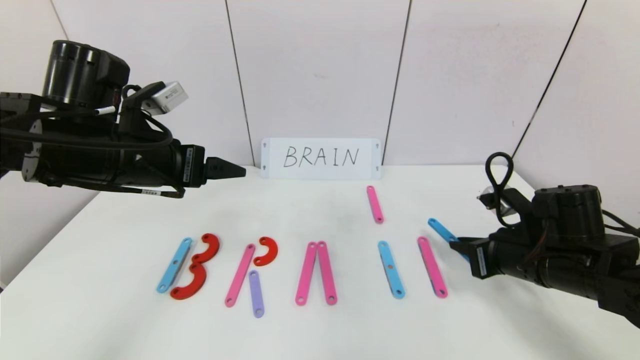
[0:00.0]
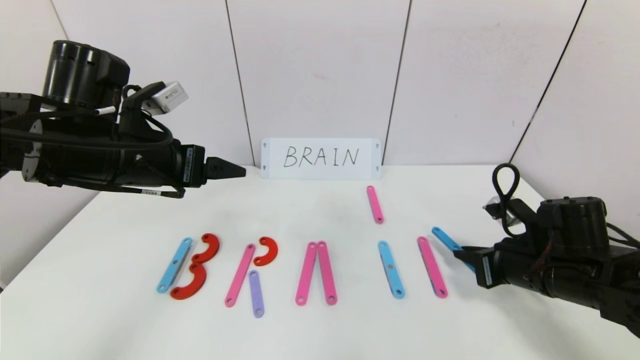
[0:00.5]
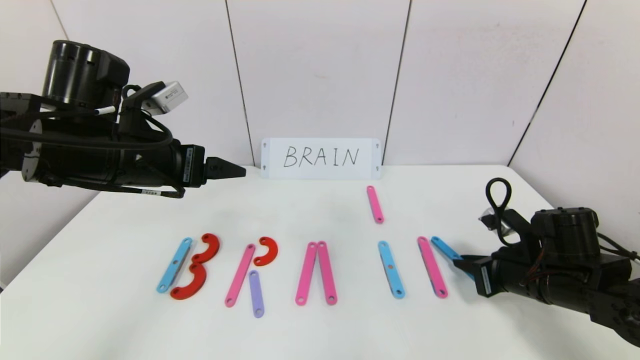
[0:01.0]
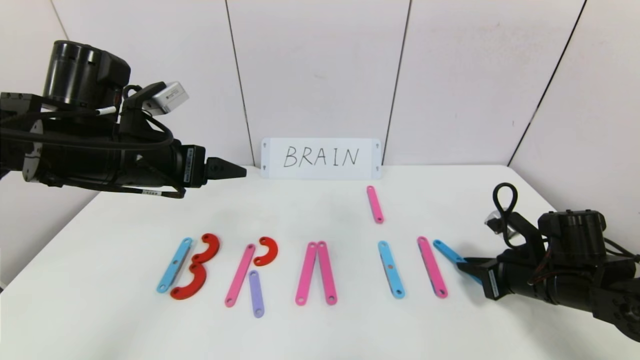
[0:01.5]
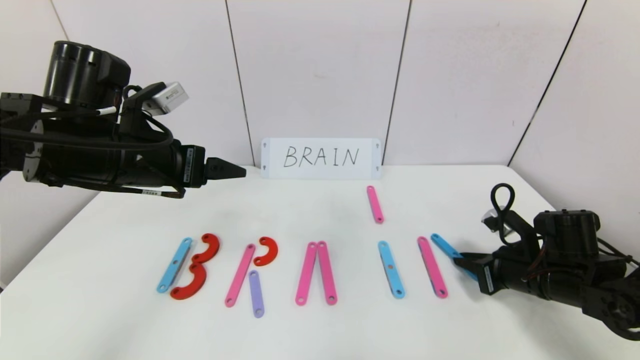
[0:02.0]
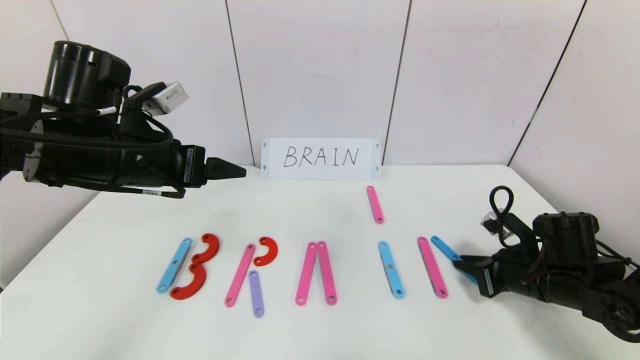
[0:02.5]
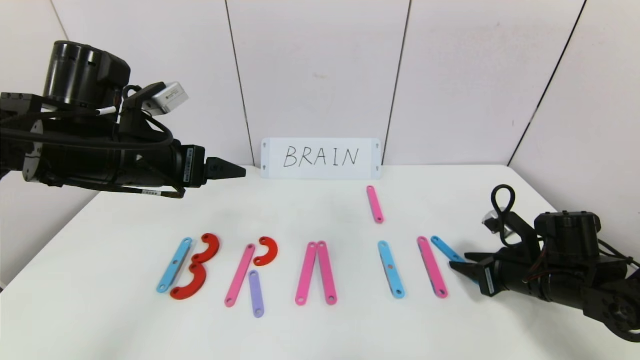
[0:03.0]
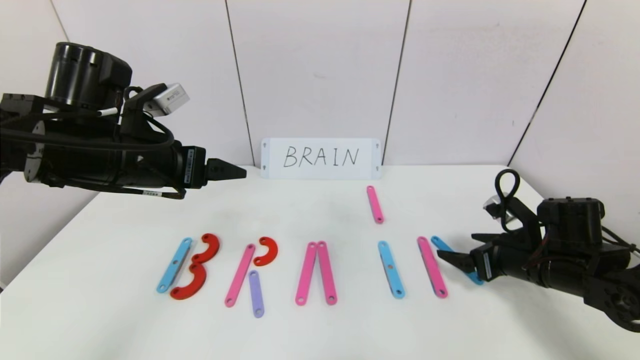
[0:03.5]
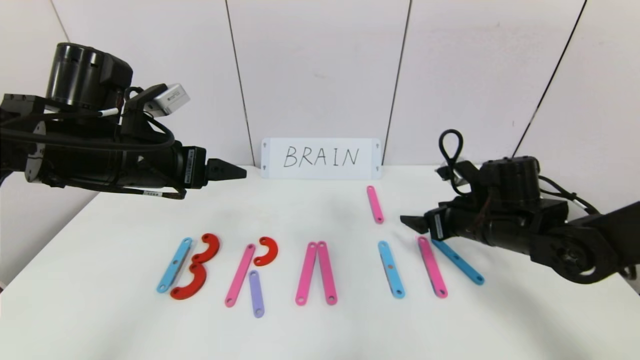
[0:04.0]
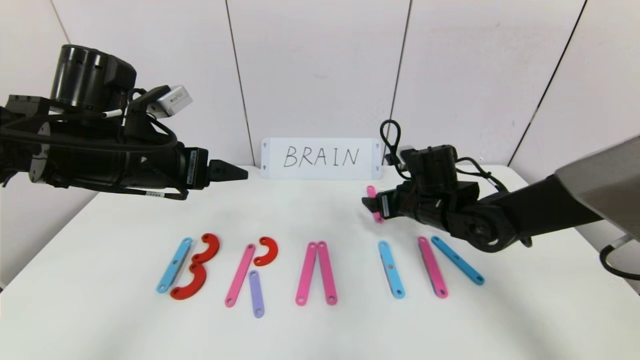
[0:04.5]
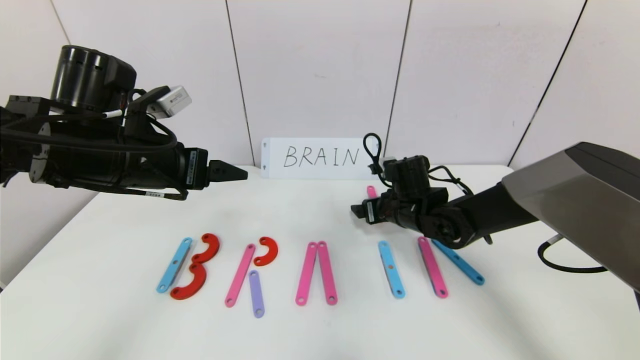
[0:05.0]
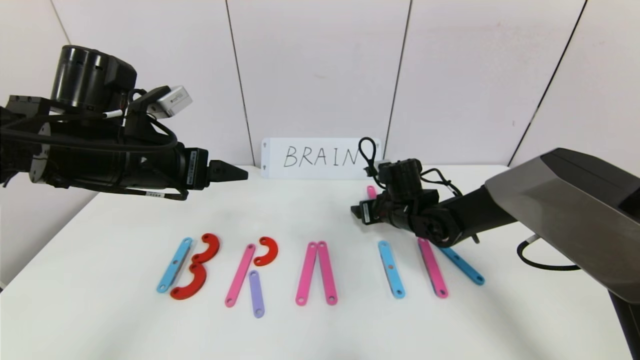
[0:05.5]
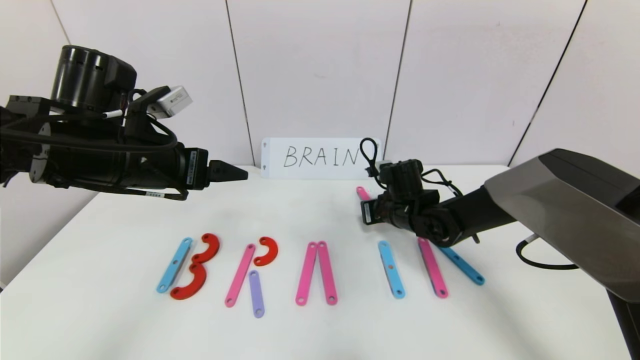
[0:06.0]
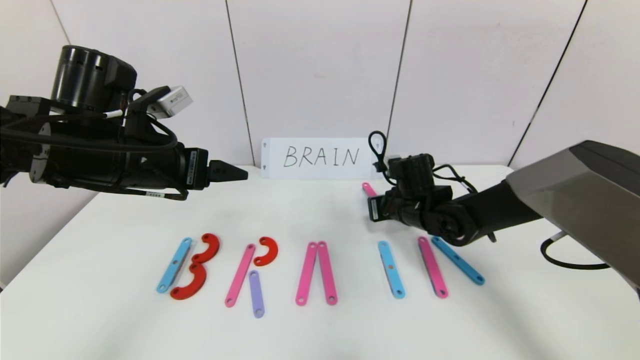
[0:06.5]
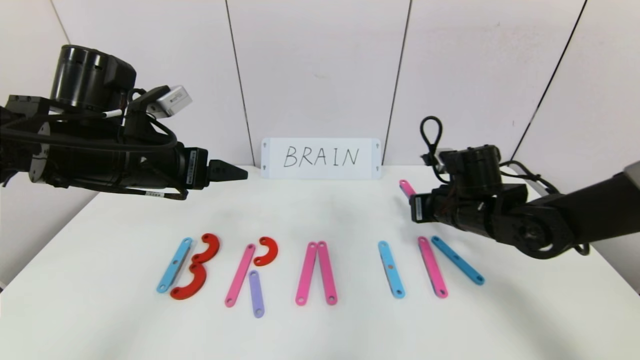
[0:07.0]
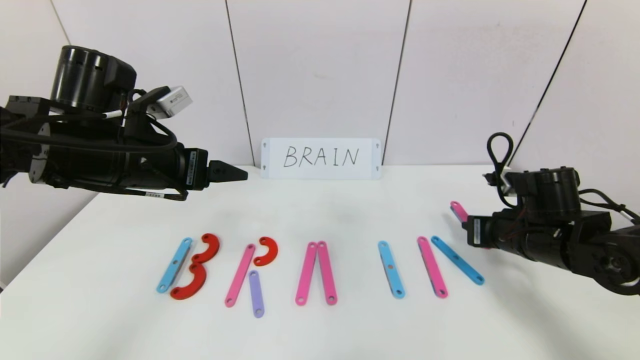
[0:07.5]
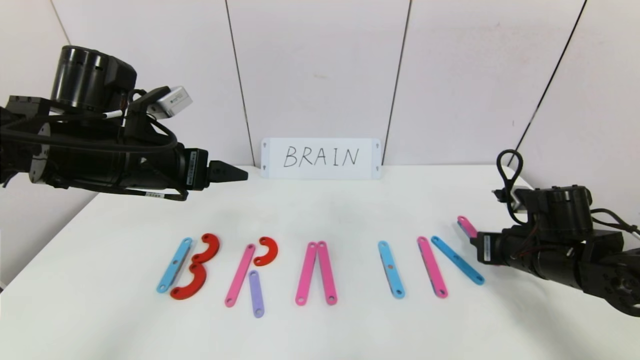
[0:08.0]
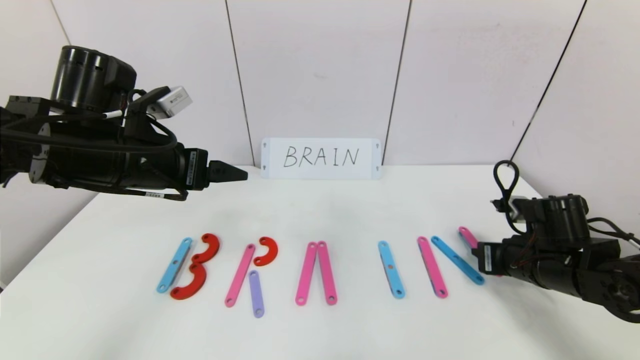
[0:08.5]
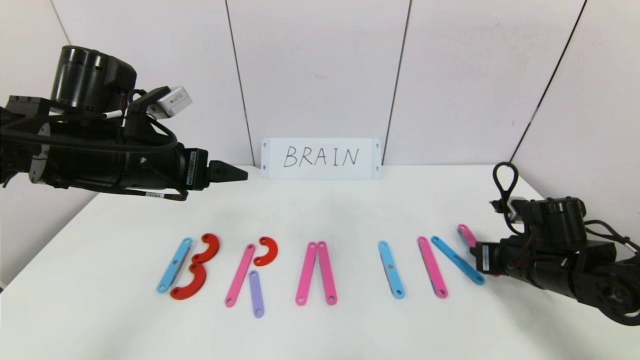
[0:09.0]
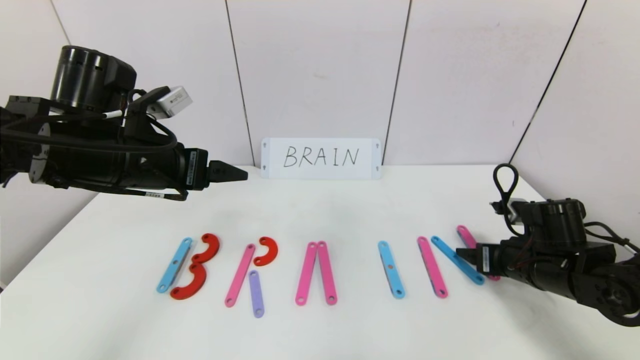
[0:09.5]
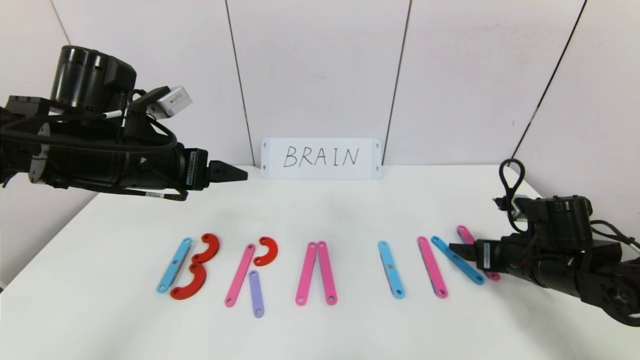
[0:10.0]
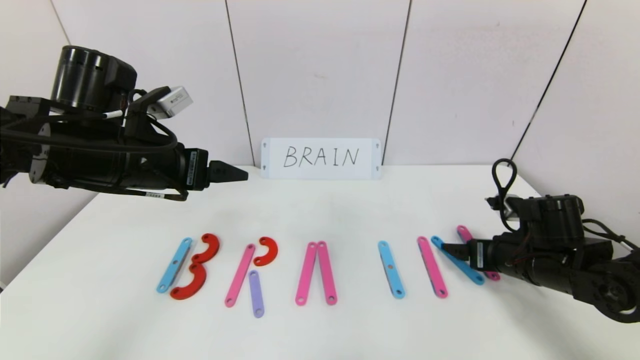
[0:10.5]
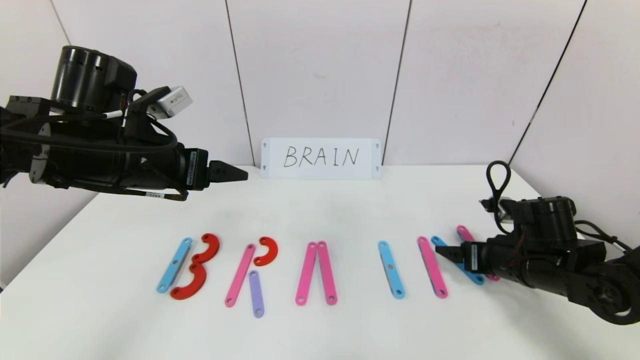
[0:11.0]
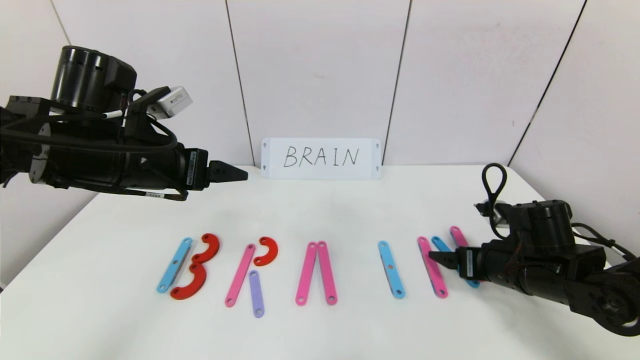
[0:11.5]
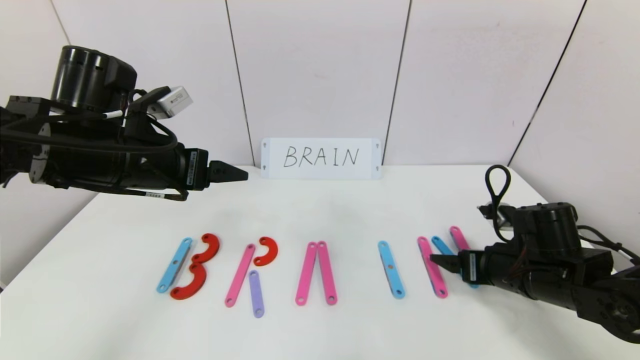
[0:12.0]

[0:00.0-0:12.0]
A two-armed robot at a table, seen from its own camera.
Task of the whole recording: rearrange the word baai as brain.
0:00.0 to 0:02.0: The right gripper travels downward by about 5 cm.
0:02.0 to 0:04.0: The right gripper travels to the left and upward by some 10 cm, and opens.
0:04.0 to 0:06.0: The right gripper is displaced to the left, forward and downward by about 15 cm, and closes its fingers.
0:06.0 to 0:08.0: The right gripper travels to the right and backward by approximately 20 cm.
0:08.0 to 0:10.0: The right gripper opens up.
0:10.0 to 0:12.0: There are only small adjustments of the grippers.

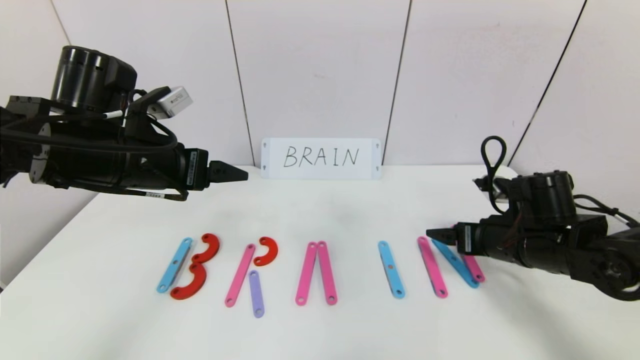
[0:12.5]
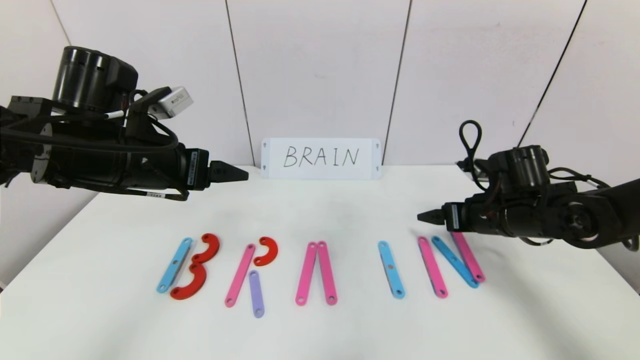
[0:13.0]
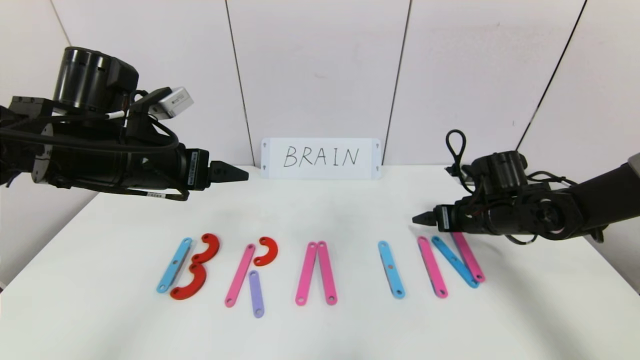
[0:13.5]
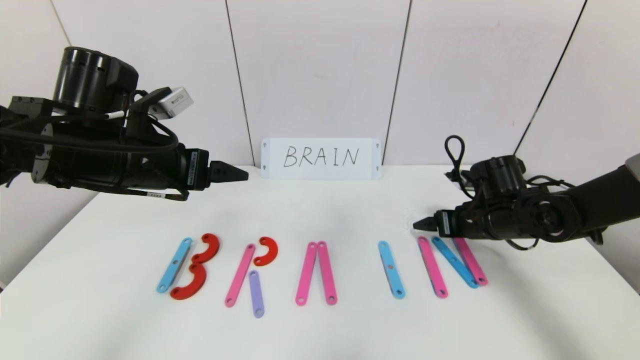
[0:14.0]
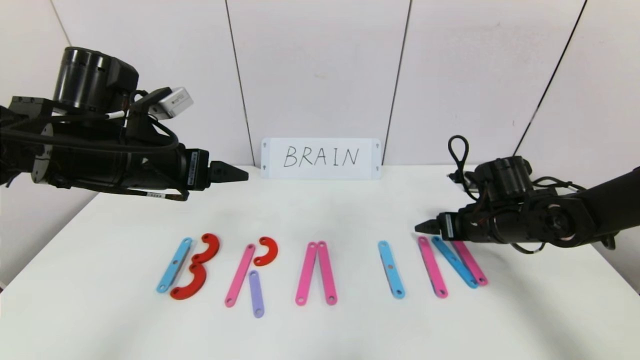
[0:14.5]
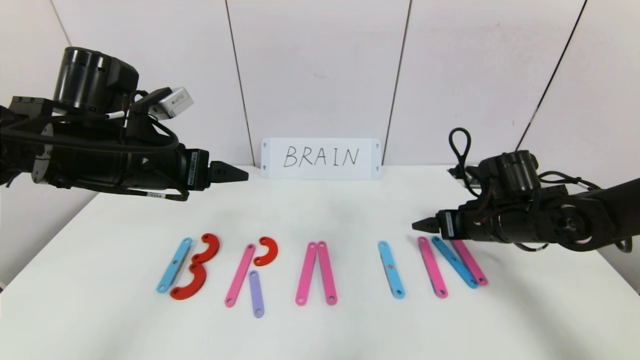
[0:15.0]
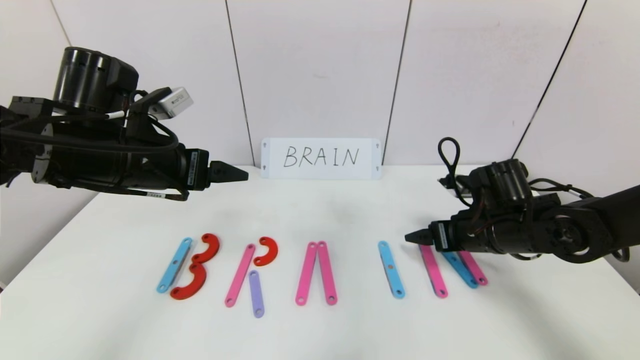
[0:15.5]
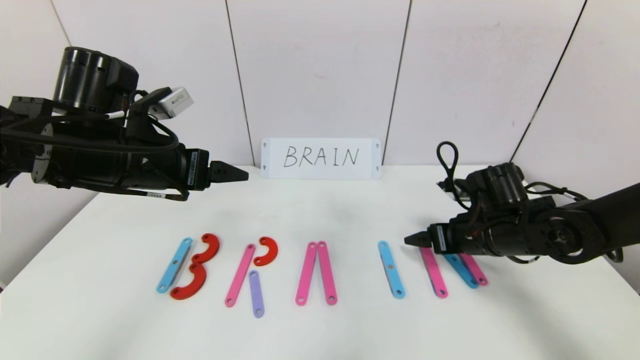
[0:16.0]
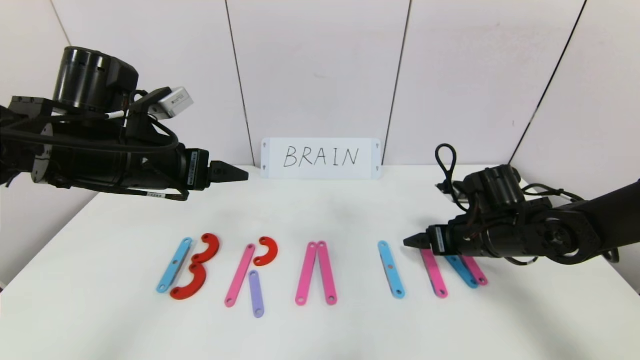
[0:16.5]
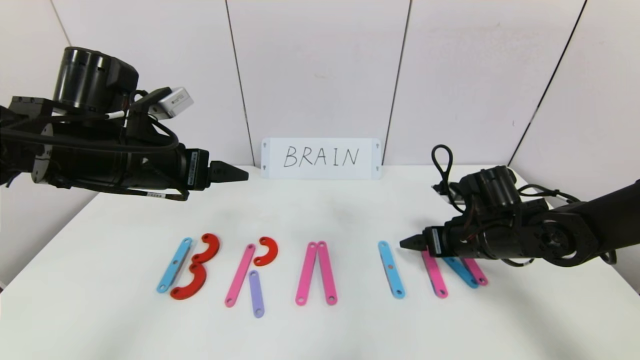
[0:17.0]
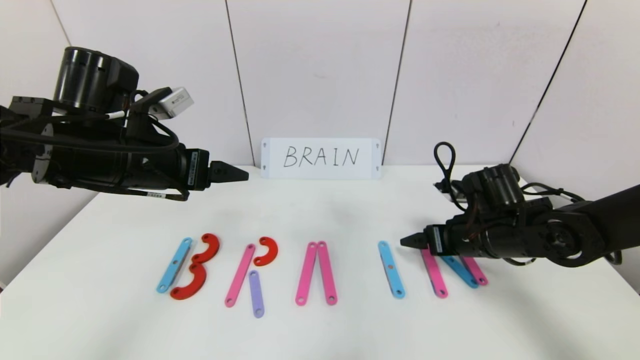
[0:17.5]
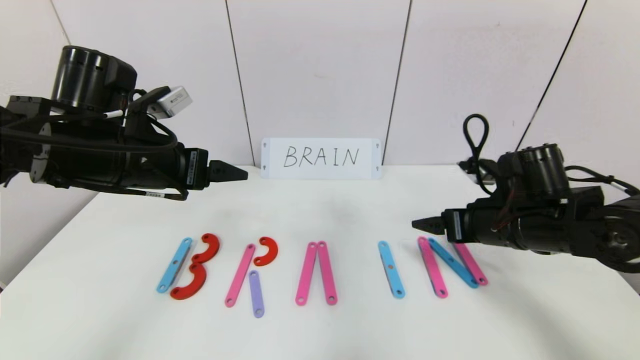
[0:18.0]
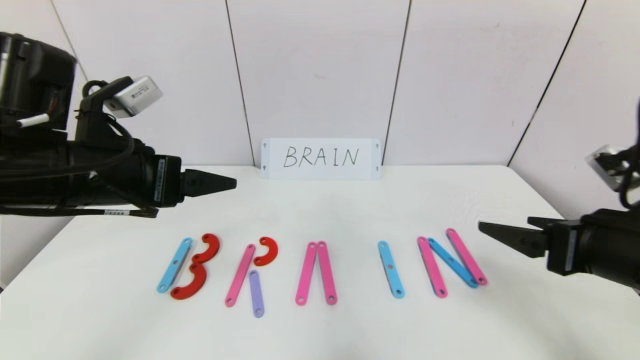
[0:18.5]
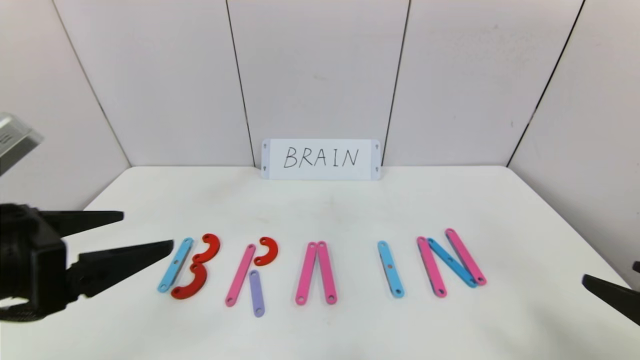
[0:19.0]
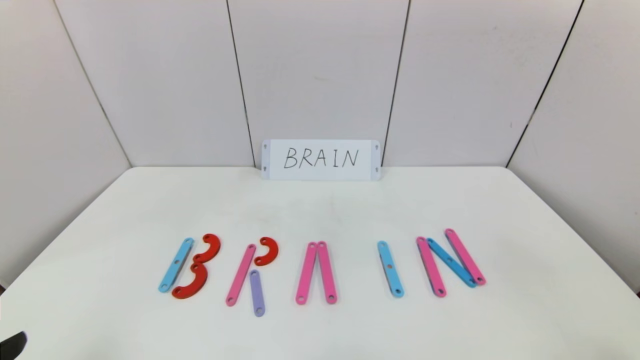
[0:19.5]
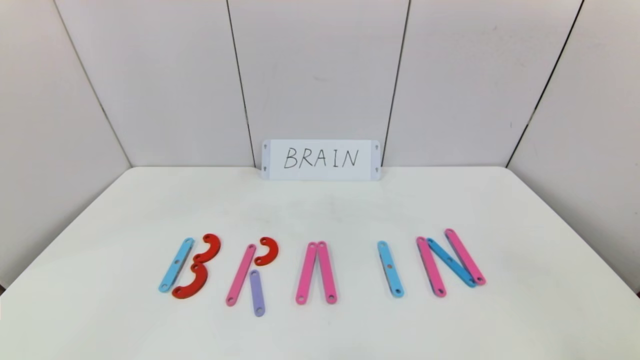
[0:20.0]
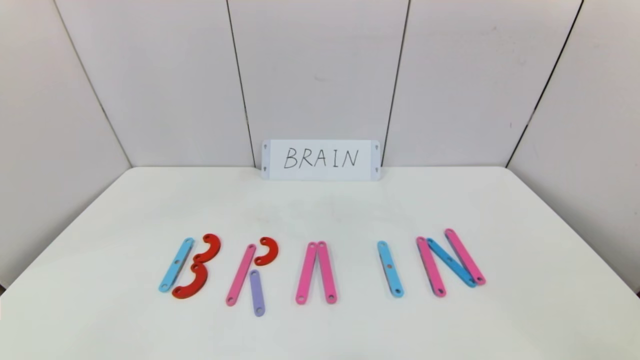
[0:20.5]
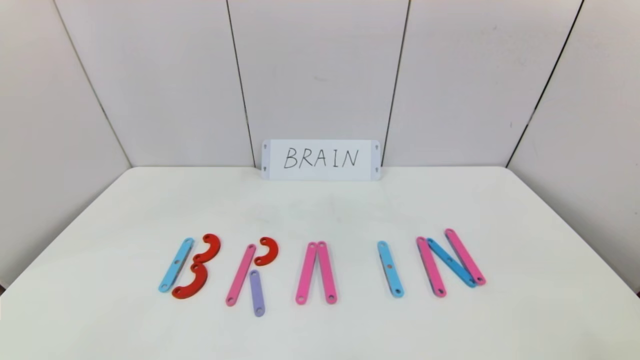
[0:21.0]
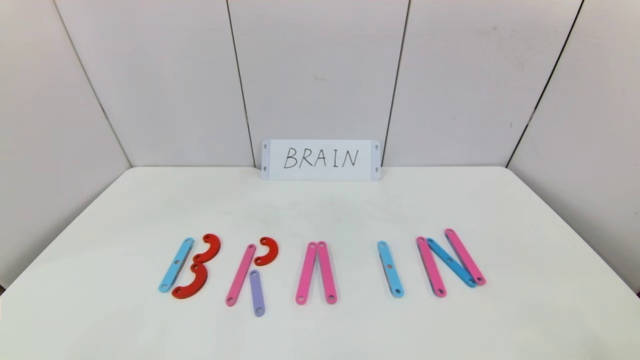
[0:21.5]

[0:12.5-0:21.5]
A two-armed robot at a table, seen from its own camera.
Task of the whole recording: rearrange the word baai as brain.
Step, 0:12.5 to 0:18.0: Place the character N after character I.
0:12.5 to 0:14.5: The right gripper heads forward, covering some 5 cm.
0:14.5 to 0:17.0: There are only small adjustments of the grippers.
0:17.0 to 0:19.5: Both grippers travel together backward, approximately 30 cm.
